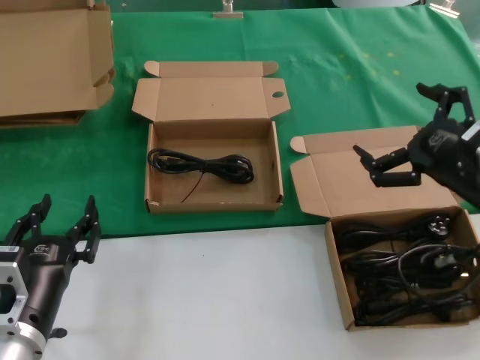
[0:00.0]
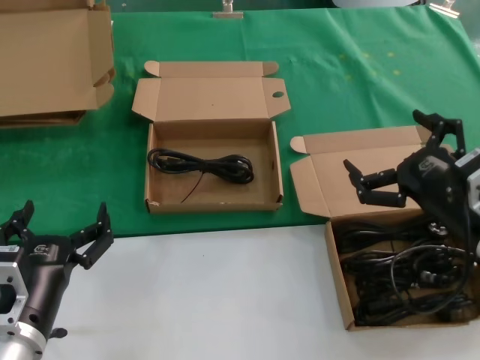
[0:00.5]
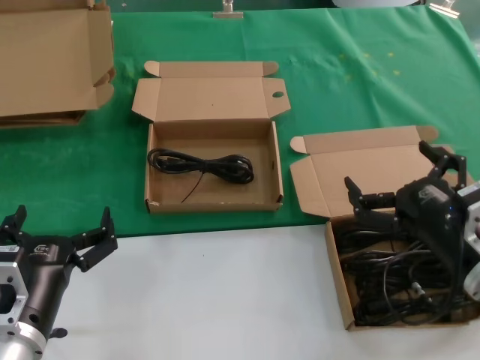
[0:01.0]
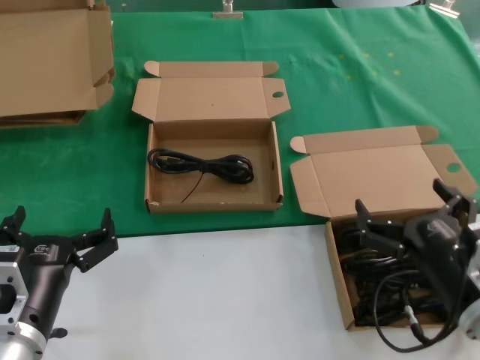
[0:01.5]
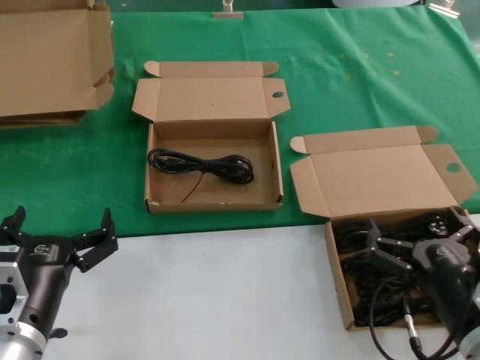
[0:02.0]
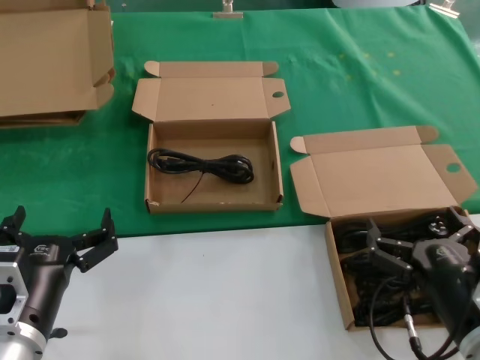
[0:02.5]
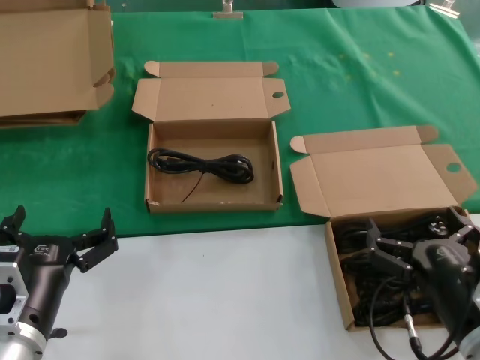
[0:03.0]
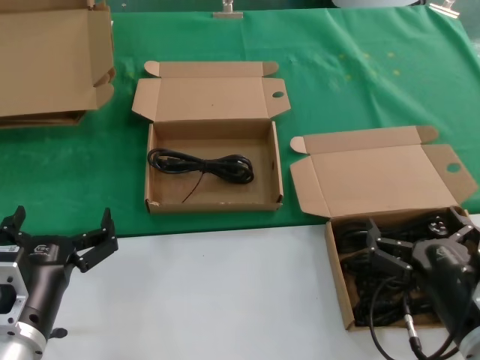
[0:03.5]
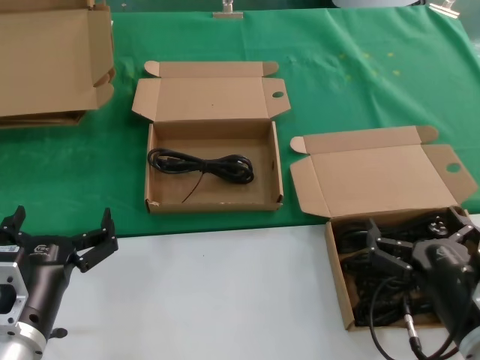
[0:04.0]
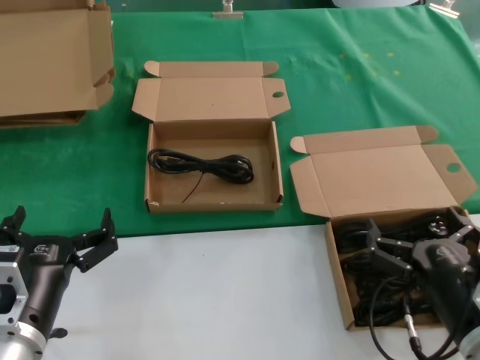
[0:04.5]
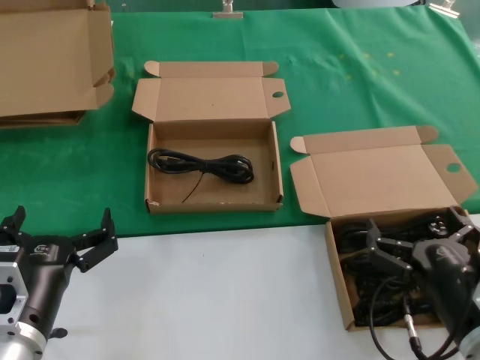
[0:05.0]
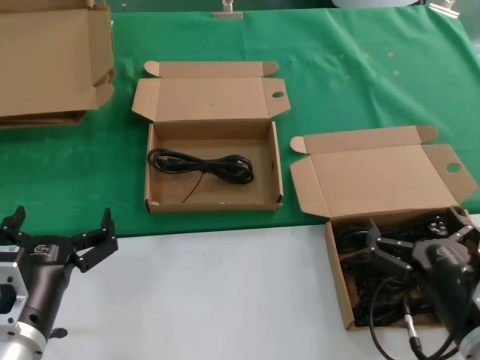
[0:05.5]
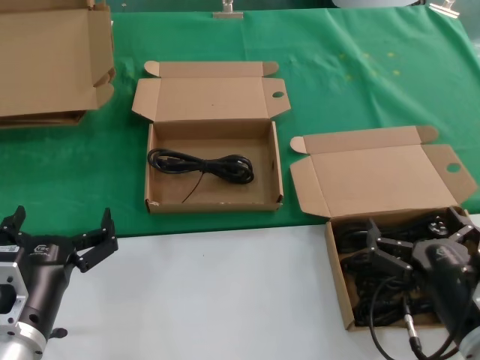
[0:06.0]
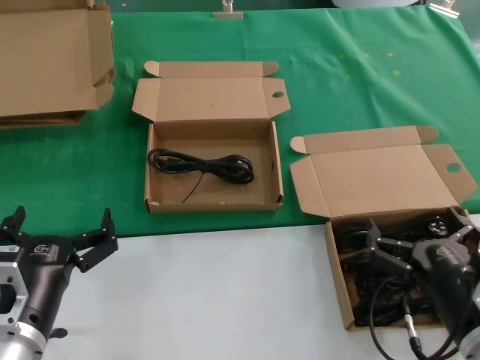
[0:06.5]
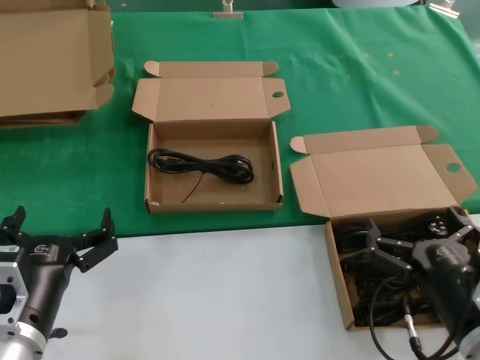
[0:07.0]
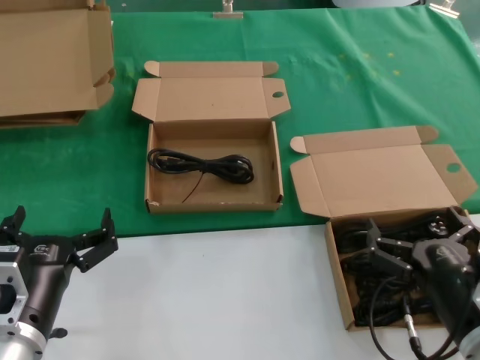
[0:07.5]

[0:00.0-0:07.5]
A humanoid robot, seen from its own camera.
Task of the whole recording: take the parts from the box containing them and put them into an empty box.
0:00.0 to 0:02.0: The right hand moves downward and backward, about 20 cm.
0:02.0 to 0:07.5: Neither hand changes place.

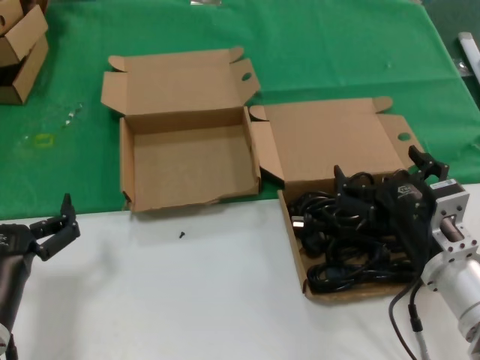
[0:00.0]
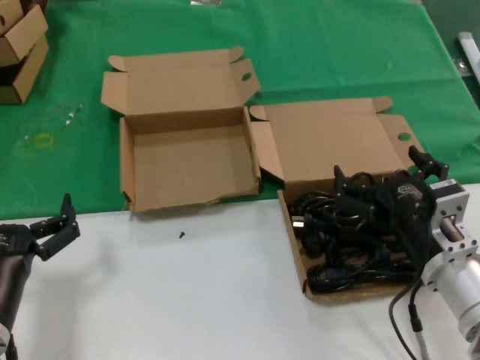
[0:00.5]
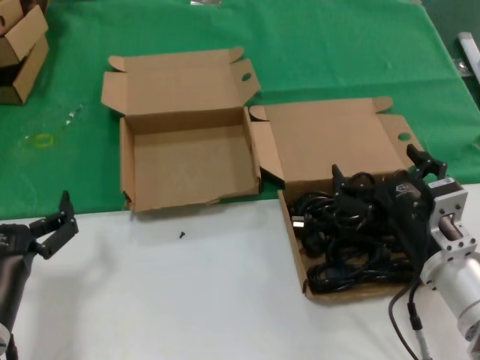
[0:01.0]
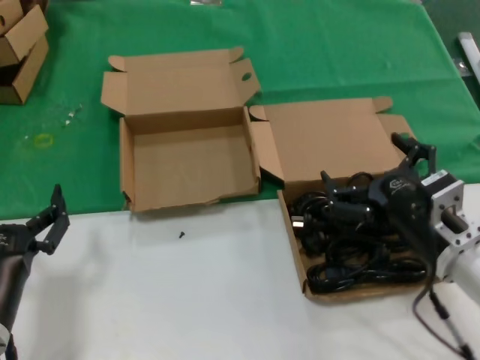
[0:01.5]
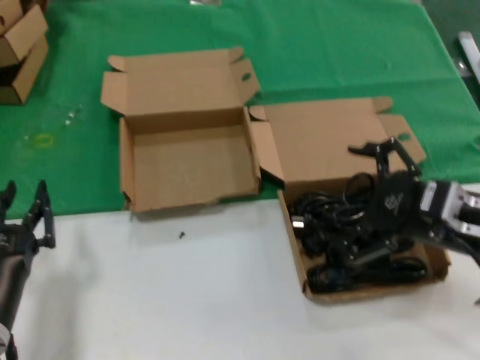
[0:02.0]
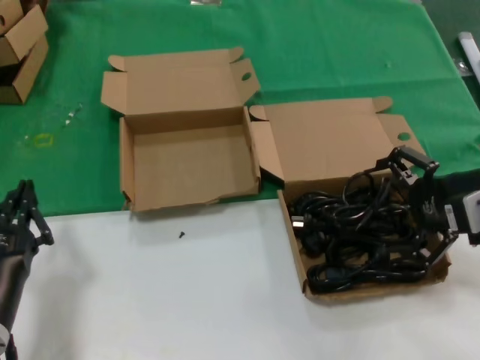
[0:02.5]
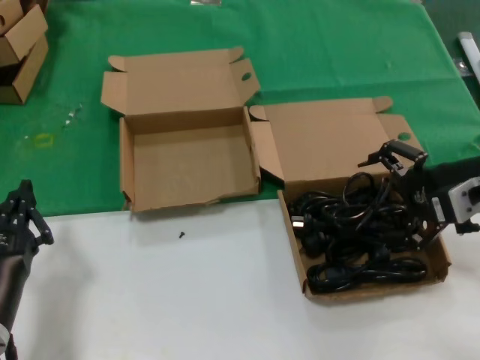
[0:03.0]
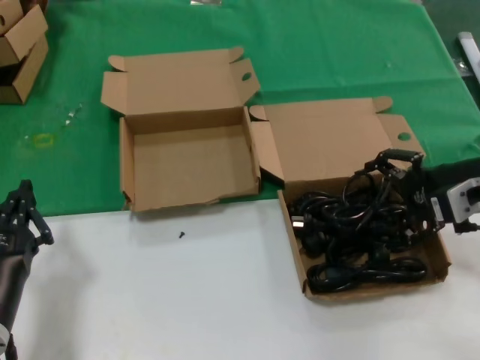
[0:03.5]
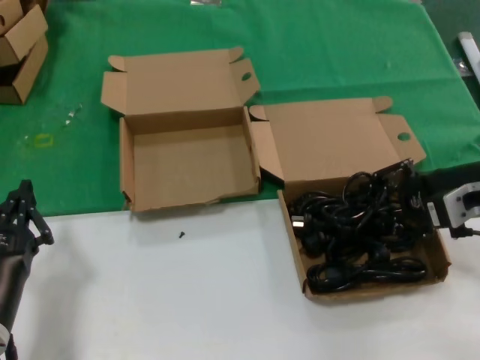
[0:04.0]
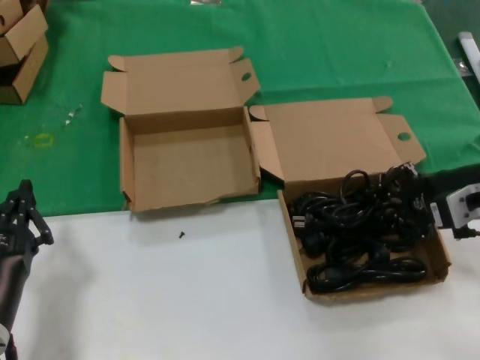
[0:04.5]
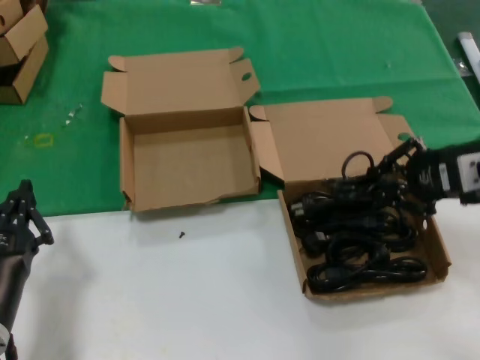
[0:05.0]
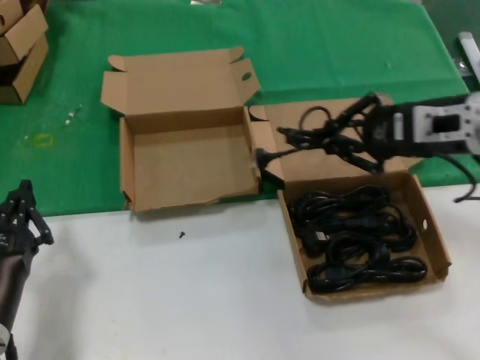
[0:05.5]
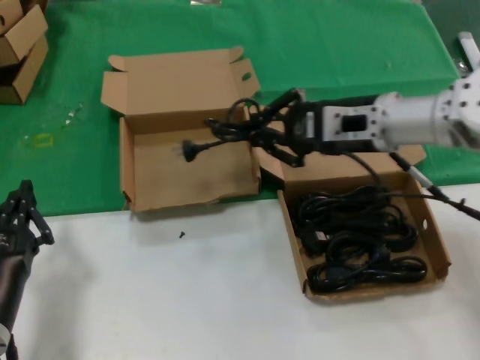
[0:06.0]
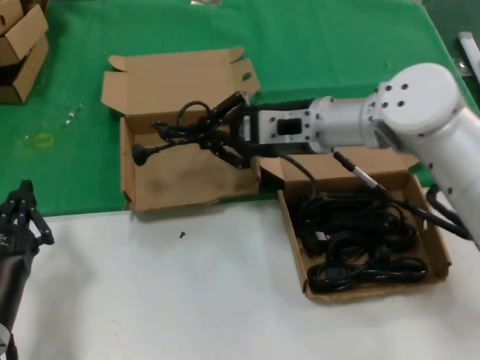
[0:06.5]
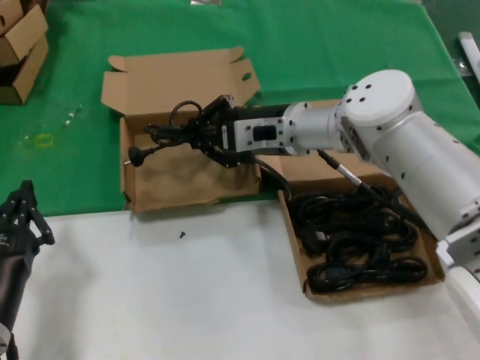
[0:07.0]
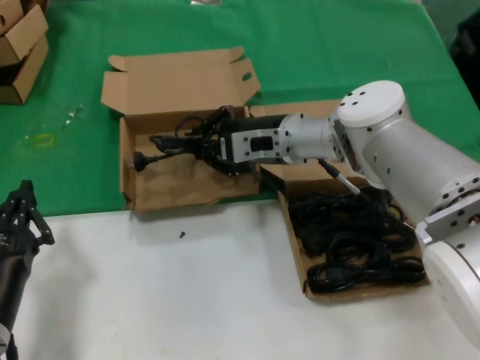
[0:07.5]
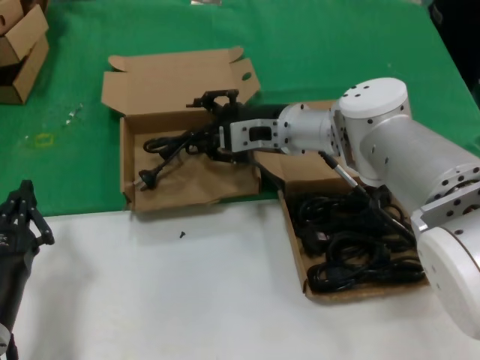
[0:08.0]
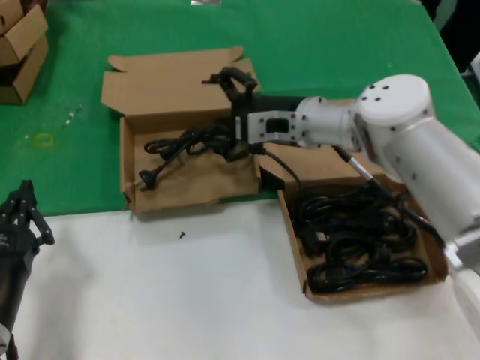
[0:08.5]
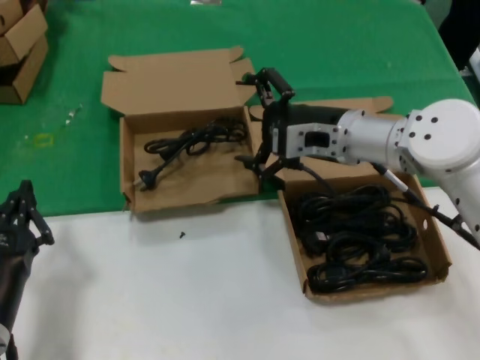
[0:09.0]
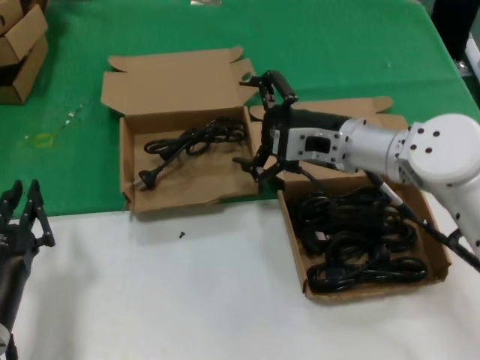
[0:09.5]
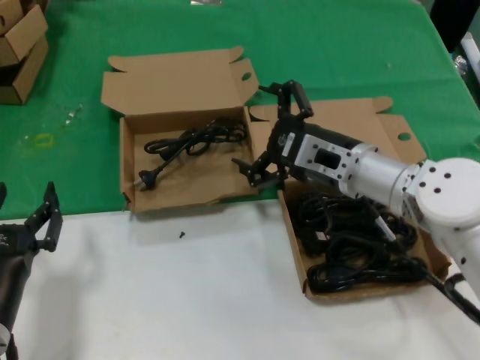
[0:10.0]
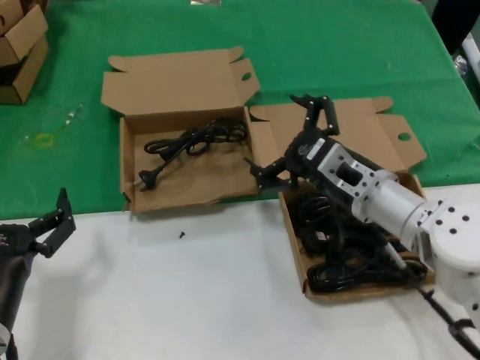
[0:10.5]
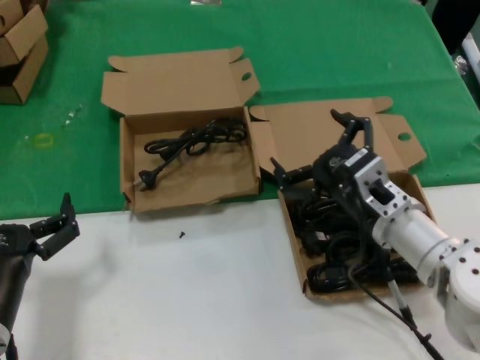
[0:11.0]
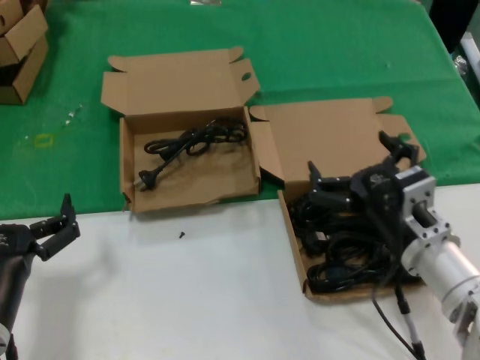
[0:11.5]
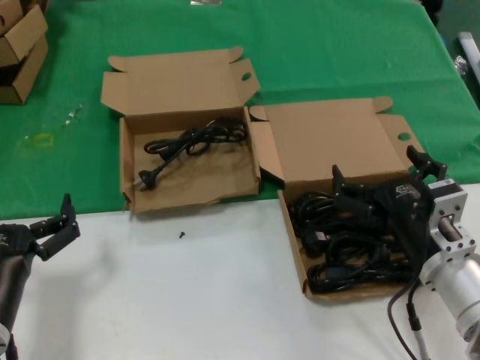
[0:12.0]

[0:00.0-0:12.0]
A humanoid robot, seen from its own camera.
Task of the whole recording: take the parts from the box containing them and put them into an empty box.
Step, 0:00.0 to 0:04.5: Grasp the data cable.
Step, 0:05.0 to 0:07.5: Place the data cable in the another box.
0:00.0 to 0:02.0: The right hand is displaced upward and to the right by roughly 10 cm.
0:02.0 to 0:04.0: The right hand goes some 10 cm forward and to the right.
0:04.0 to 0:06.0: The right hand is displaced to the left and forward by approximately 15 cm.
0:06.0 to 0:08.0: The right hand goes roughly 15 cm to the left, forward and downward.
0:08.0 to 0:10.0: The right hand travels backward and to the right by about 10 cm.
0:10.0 to 0:12.0: The right hand travels backward and downward by about 15 cm.

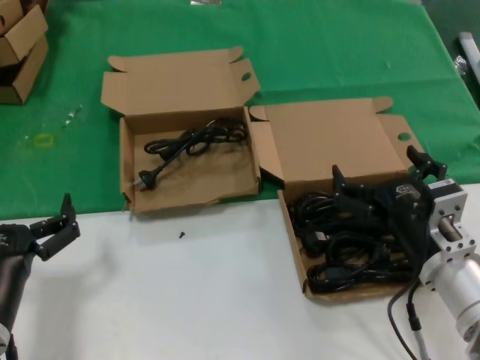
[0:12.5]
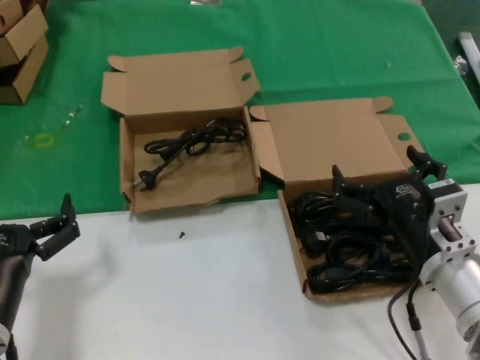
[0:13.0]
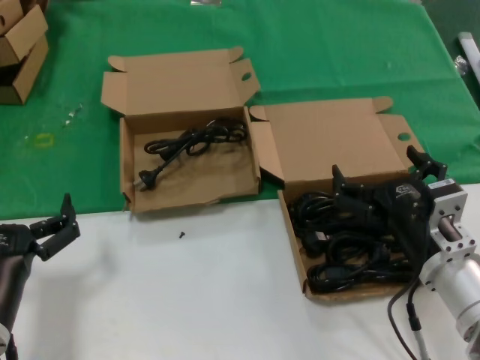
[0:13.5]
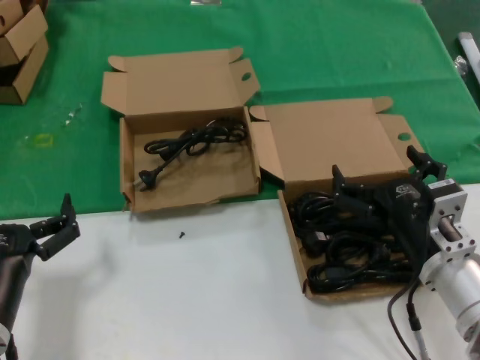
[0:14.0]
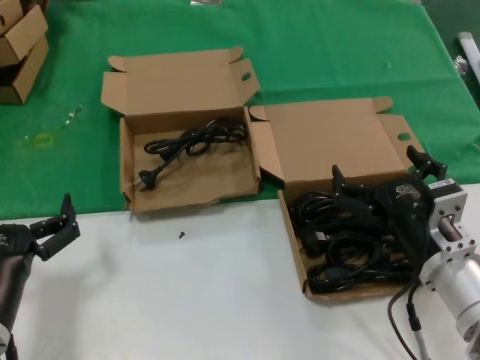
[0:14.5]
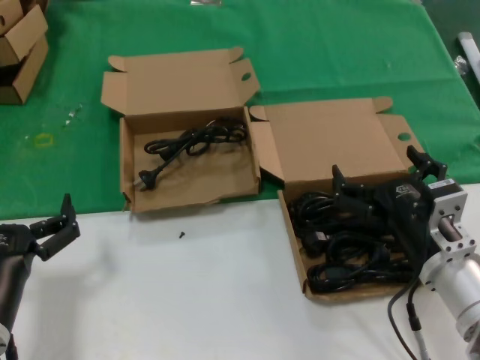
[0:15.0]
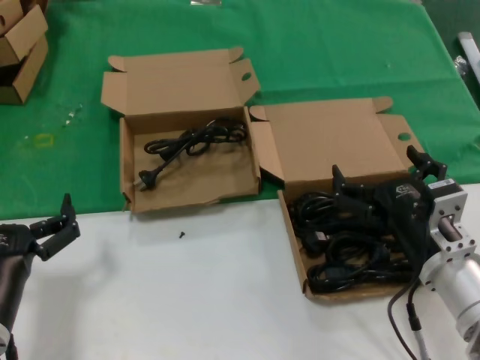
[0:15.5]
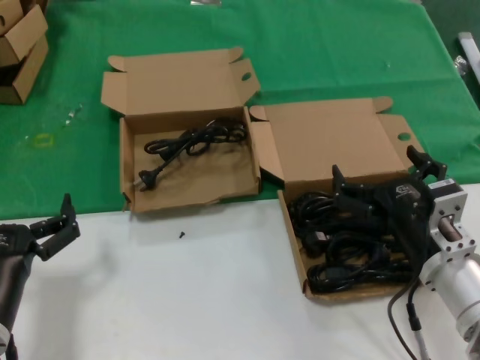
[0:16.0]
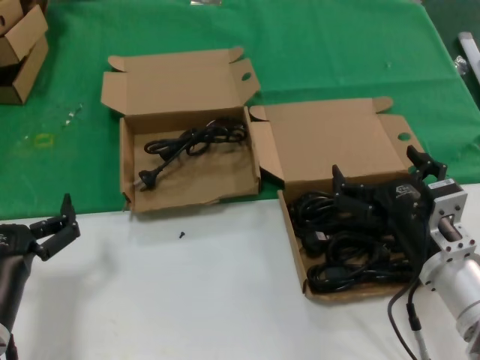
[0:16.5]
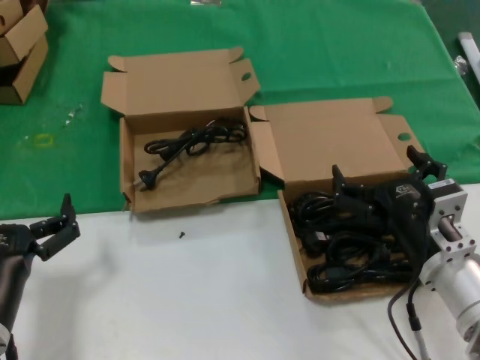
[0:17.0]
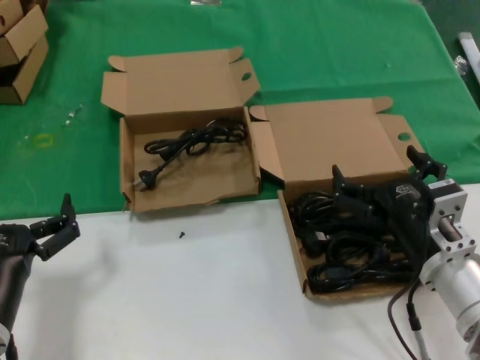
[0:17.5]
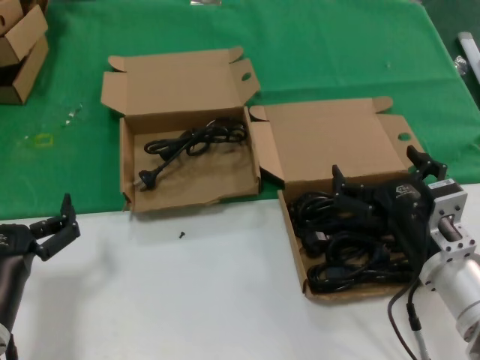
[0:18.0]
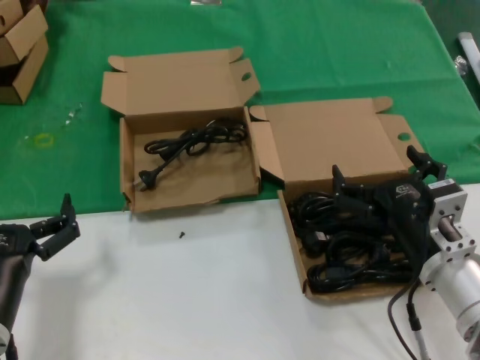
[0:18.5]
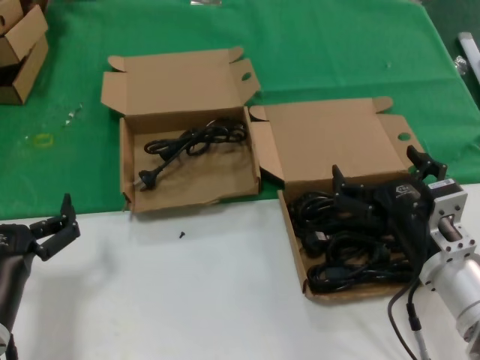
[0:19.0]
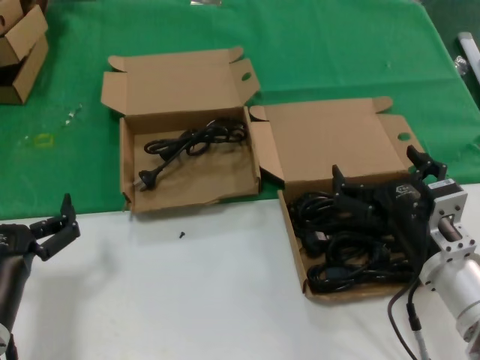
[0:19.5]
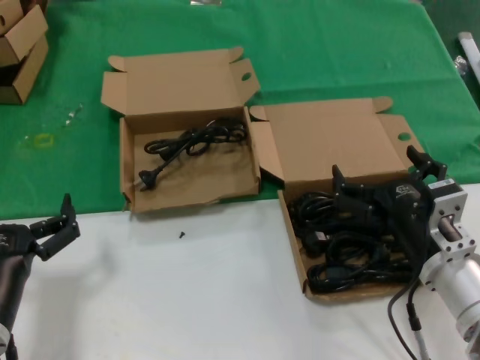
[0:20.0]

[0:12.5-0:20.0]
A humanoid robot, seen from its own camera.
Task of the whole recording: take the parts from the box containing them and put them into an empty box.
0:12.5 to 0:20.0: Both hands stay put.
